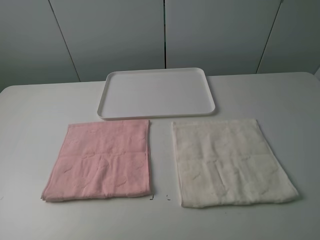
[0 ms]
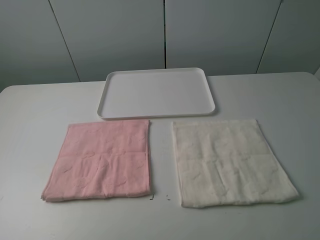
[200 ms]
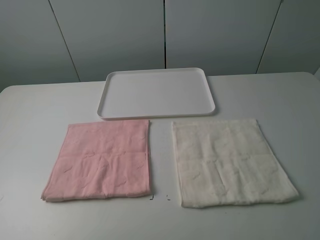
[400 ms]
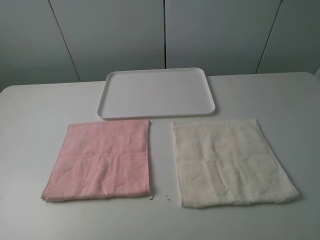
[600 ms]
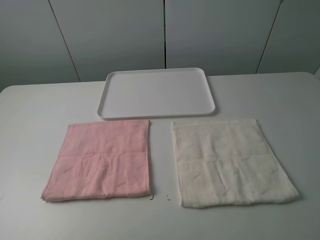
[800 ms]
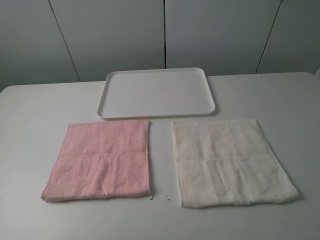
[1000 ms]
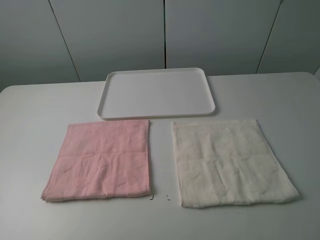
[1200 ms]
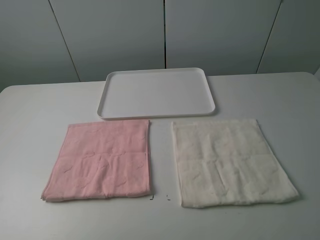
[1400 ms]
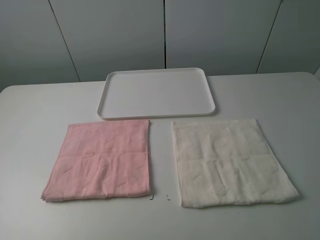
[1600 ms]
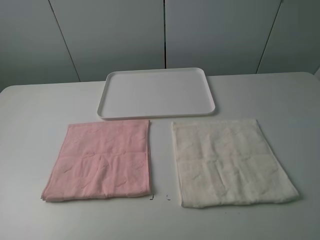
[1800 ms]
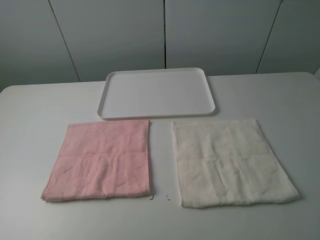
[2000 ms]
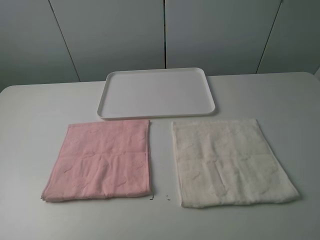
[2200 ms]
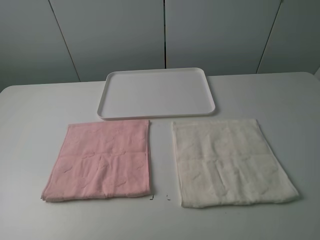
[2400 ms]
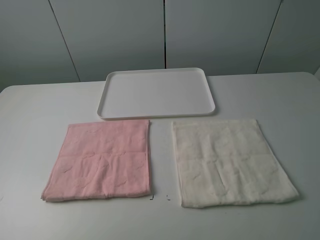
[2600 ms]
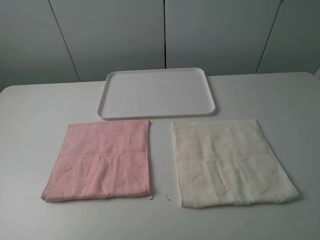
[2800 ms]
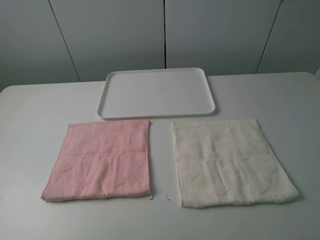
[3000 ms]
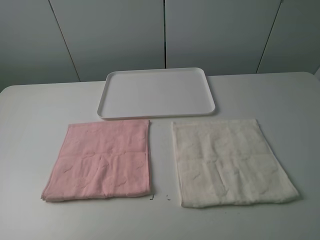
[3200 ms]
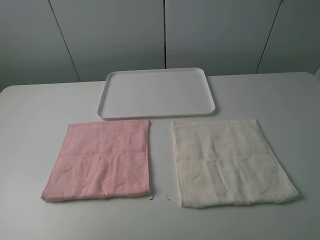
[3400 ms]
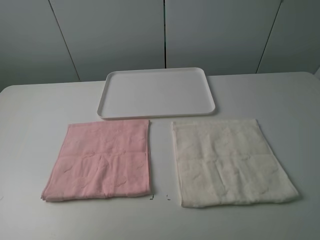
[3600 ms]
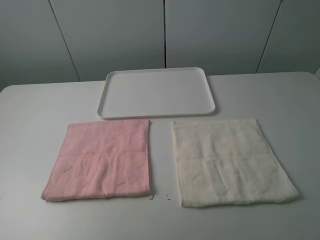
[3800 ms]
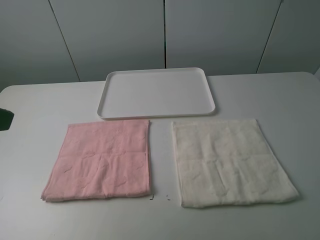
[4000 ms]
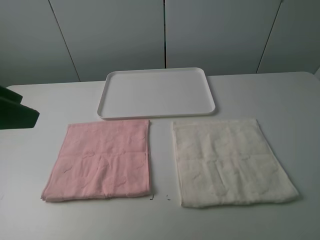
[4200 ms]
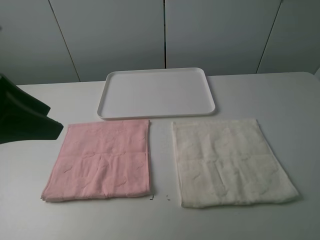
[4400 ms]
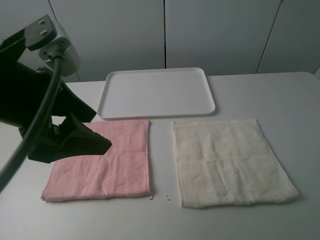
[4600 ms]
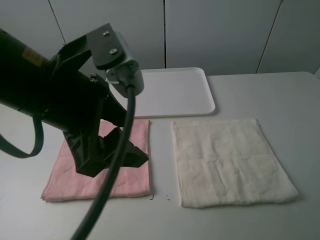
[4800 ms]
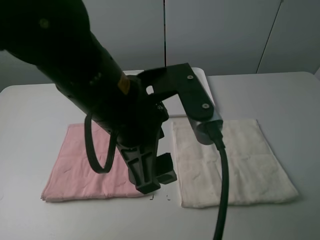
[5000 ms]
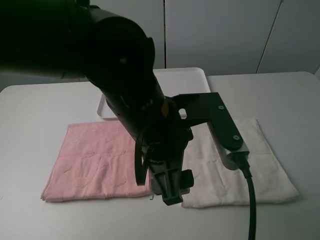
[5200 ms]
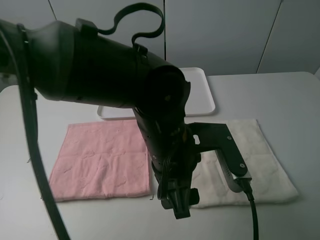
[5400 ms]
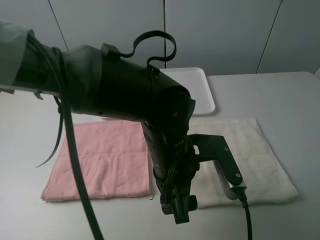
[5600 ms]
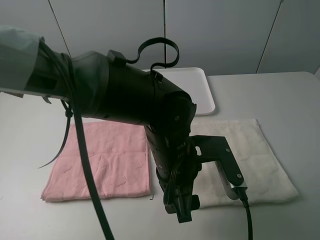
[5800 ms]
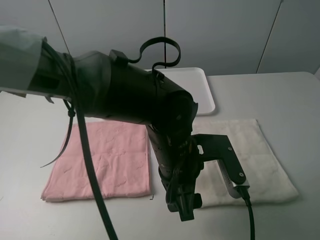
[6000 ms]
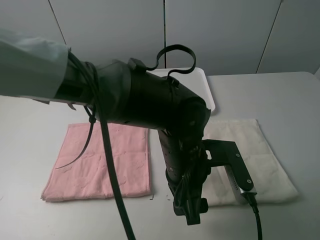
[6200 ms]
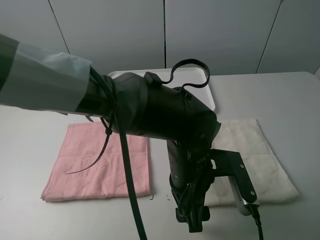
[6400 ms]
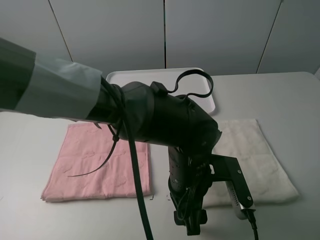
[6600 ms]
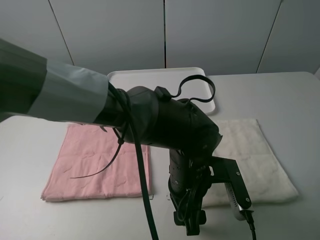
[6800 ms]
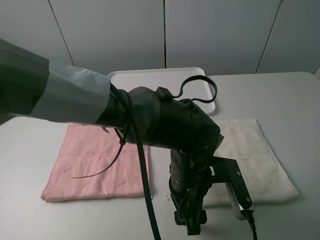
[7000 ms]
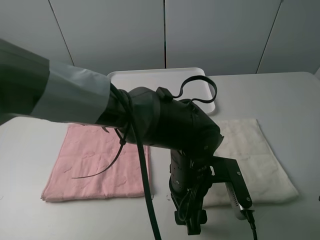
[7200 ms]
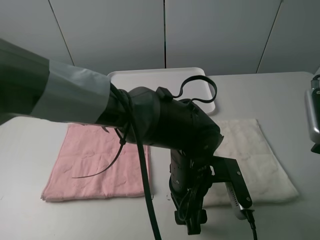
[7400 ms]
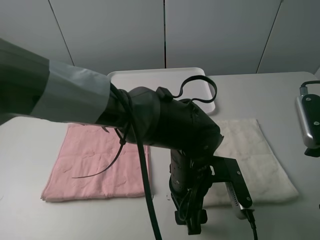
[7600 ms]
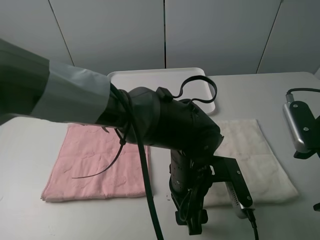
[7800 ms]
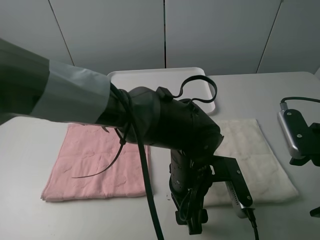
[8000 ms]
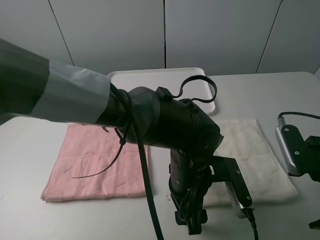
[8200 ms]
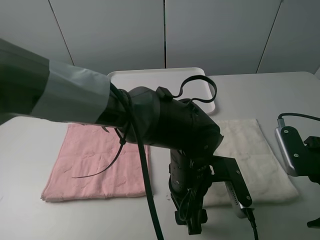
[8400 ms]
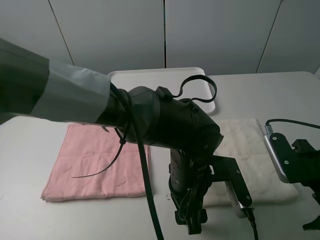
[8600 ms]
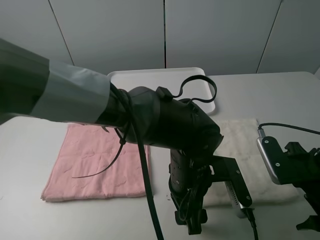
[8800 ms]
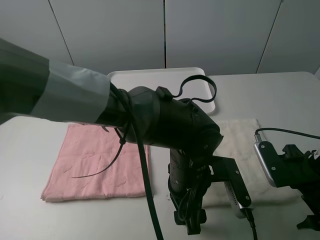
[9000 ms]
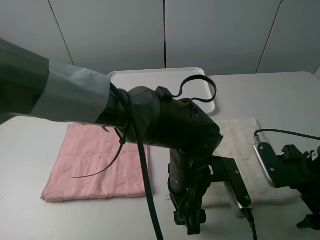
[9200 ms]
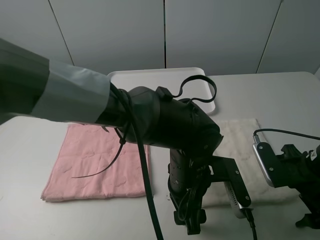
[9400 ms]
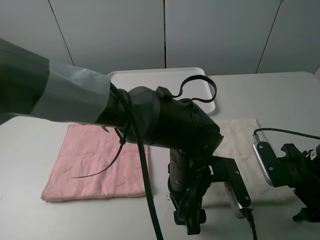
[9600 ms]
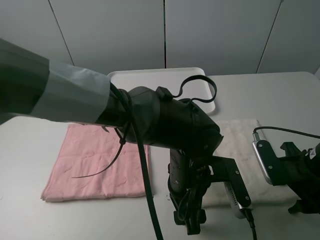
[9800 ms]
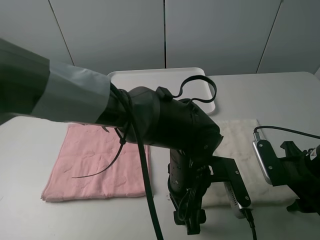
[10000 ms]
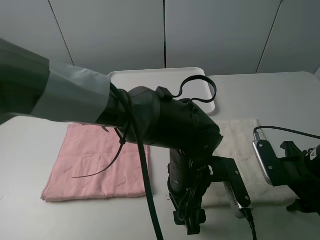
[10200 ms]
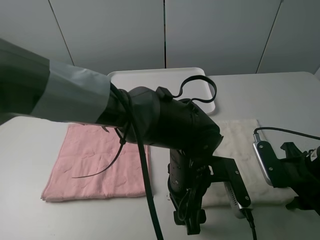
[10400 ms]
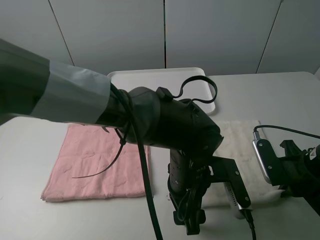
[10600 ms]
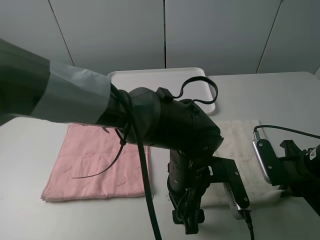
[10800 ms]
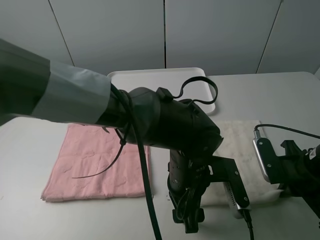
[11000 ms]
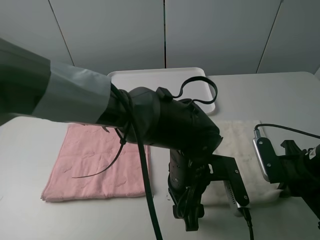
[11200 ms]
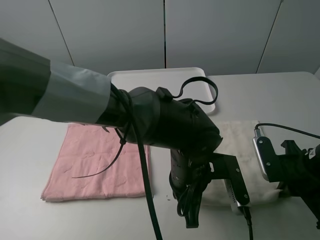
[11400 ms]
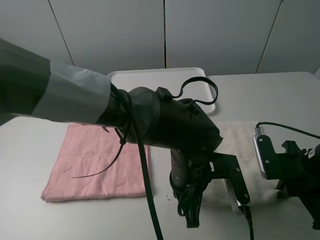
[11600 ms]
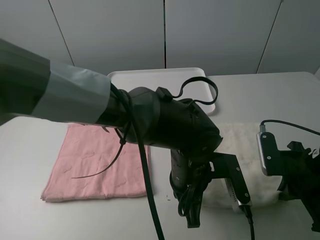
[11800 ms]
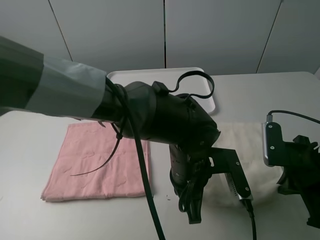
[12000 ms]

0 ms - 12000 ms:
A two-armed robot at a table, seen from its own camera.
Task of the whole recording: fold one of the towels by two grippers and place it on the tray,then fold another towel by two grippers and place it on the folded towel.
Step, 0 ms - 11800 ms: Grasp the white towel with the left gripper.
0 ms - 1600 ms: Both grippers stay put.
3000 ms - 4400 ms: The left gripper heads forward and to the right, covering approximately 15 cm.
4400 ms - 6000 ms: The left gripper shifts some 30 cm to the right and downward.
6000 ms - 7600 ms: The right gripper moves forward and downward, some 10 cm.
7600 ms - 9000 ms: The right gripper is displaced downward by some 10 cm.
9000 ms - 10400 ms: The right gripper closes up.
10400 ms - 12000 ms: The right gripper closes its fingers, while the left gripper closes.

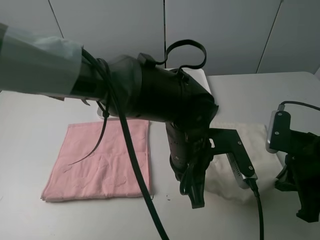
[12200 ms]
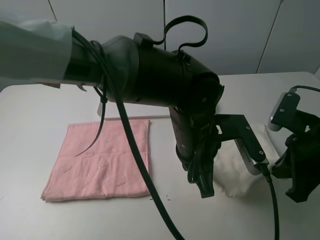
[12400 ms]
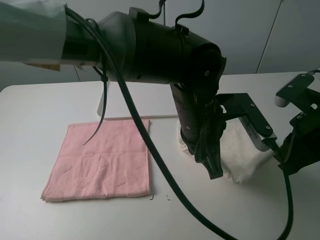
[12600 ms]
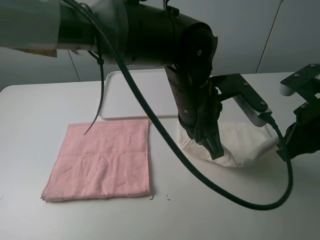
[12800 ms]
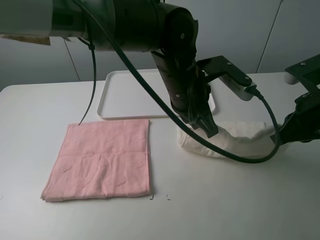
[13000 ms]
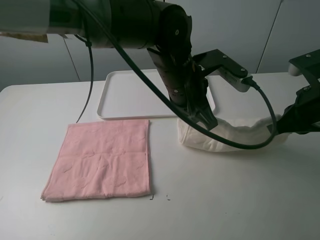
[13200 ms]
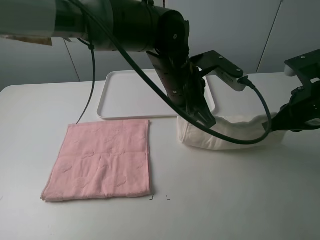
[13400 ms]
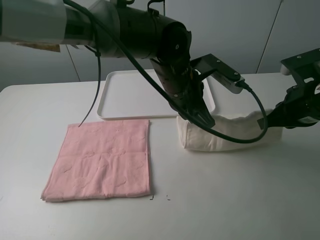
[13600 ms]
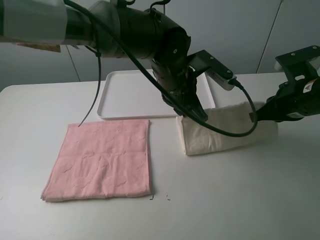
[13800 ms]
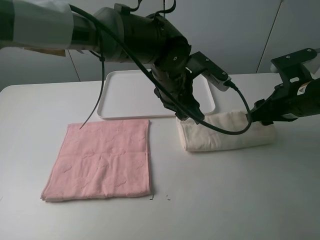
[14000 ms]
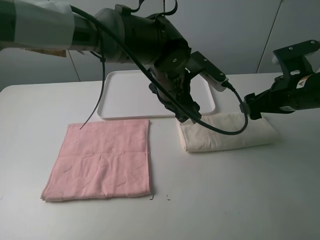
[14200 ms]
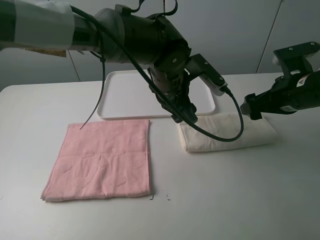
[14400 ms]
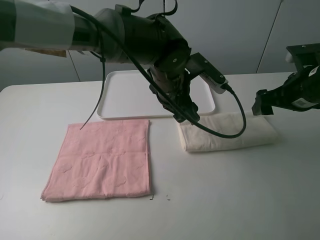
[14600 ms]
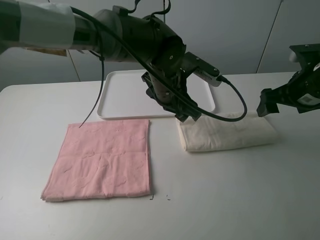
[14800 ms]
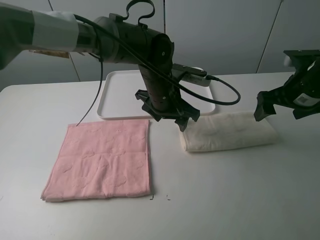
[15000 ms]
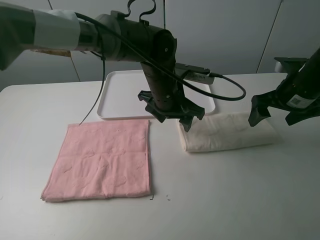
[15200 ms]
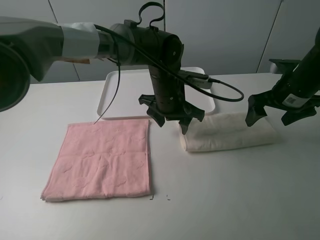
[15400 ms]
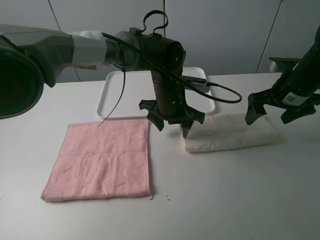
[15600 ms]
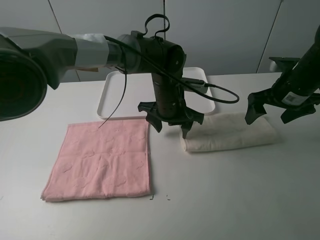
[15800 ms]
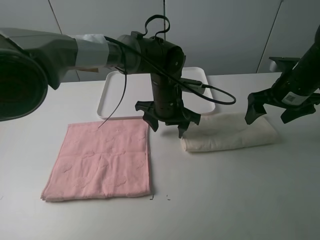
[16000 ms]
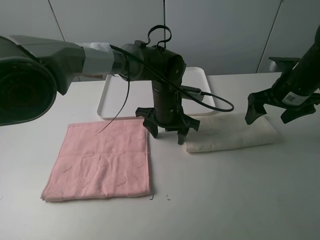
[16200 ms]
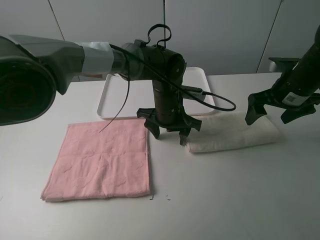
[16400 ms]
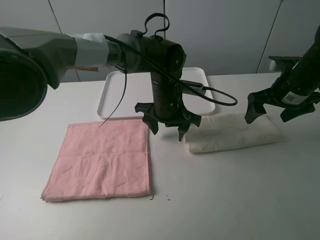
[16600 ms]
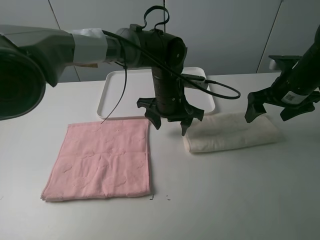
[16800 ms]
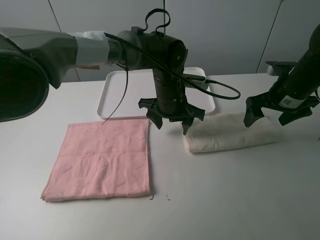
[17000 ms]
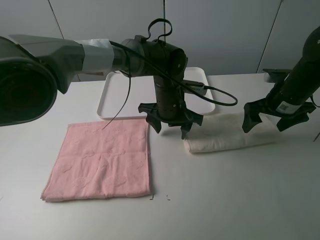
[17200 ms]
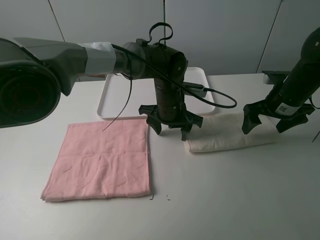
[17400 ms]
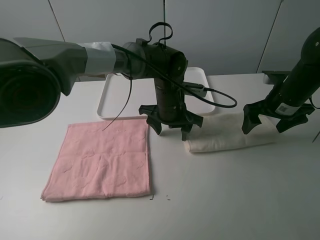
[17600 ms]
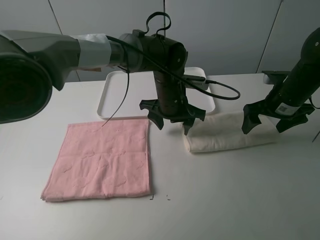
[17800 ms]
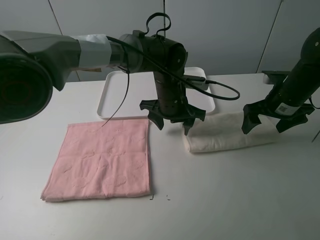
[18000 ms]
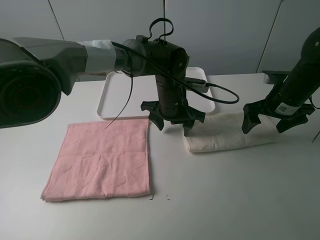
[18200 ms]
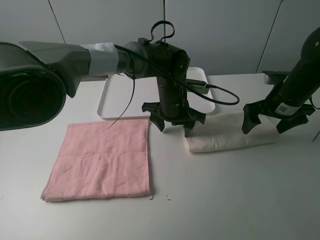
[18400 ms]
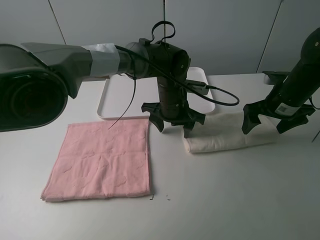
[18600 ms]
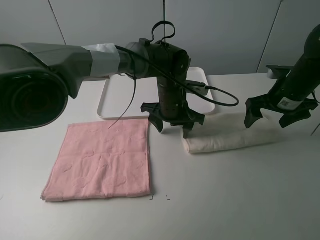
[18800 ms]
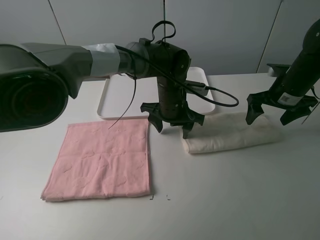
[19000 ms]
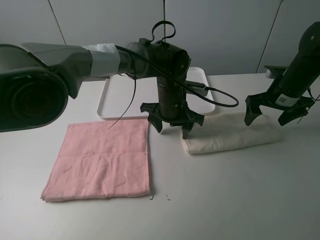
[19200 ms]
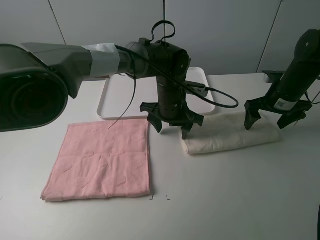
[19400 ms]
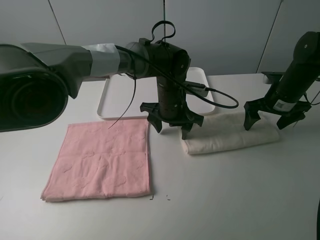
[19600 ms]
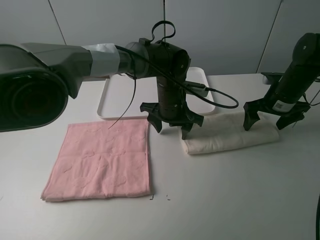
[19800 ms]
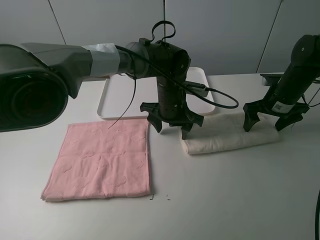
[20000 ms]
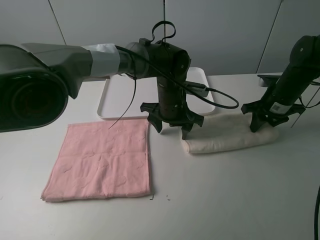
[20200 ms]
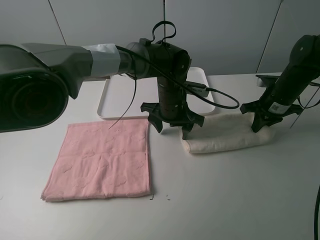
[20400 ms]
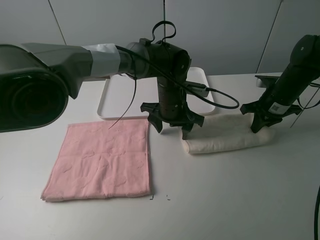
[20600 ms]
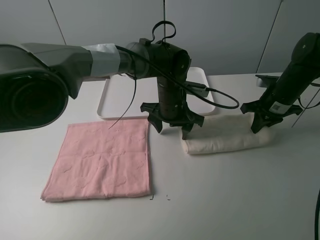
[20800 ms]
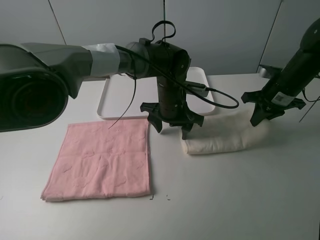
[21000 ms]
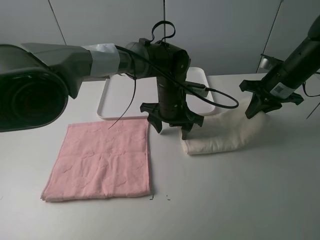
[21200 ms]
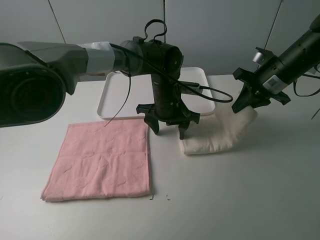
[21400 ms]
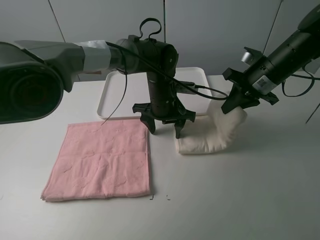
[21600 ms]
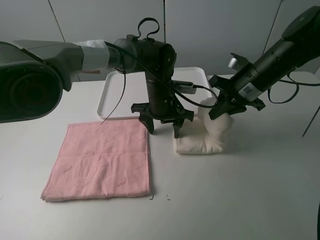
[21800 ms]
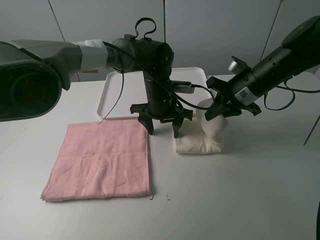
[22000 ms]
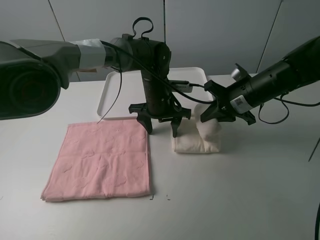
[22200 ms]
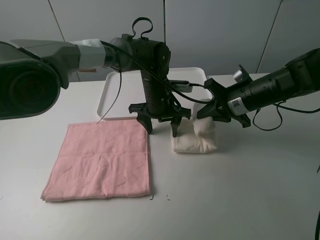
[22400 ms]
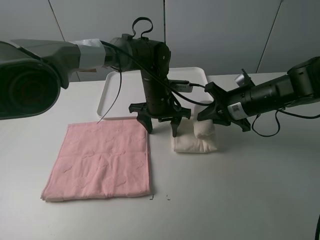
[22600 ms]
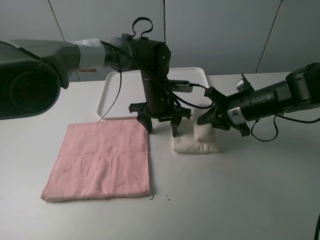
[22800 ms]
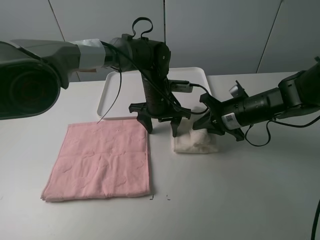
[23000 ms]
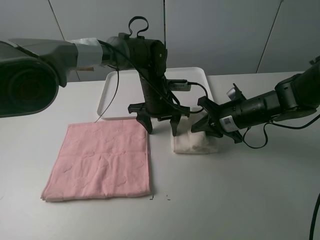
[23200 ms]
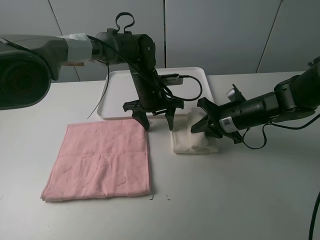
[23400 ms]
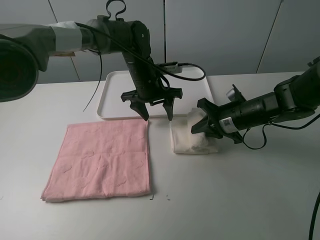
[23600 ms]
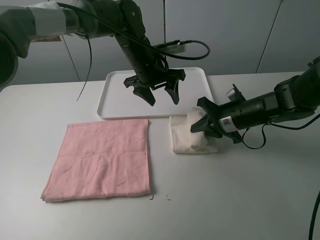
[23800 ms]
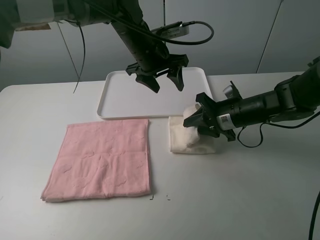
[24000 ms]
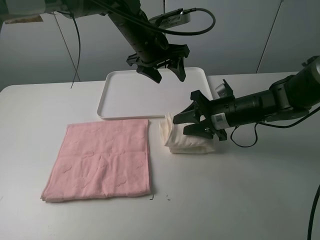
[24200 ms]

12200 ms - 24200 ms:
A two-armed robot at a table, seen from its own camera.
Task of the whole recording: fold one of the towels by two grippers and place it on the tray,then fold another towel by two grippers and place it on the folded towel.
Step, 12200 ms - 14200 ms: Fold the white towel upwards with the left gripper.
Step, 14400 ms - 19000 ms: Press the white towel with the left gripper.
Step, 19200 ms - 20400 ms: Grasp the white towel with the right gripper.
12200 ms - 13800 ms: Both grippers travel together forward, about 10 cm. The left gripper opens its fingers.
13800 ms - 15200 ms: The left gripper opens its fingers; the right gripper is displaced forward by some 5 cm, and opens its fingers.
15200 ms - 18200 ms: The grippers make only small movements.
18200 ms - 19800 ms: The right gripper ends up roughly 5 cm from where it was.
19800 ms - 21200 ms: The right gripper travels upward by some 5 cm, and closes.
21200 ms - 22600 ms: The right gripper moves to the left, about 5 cm.
22600 ms - 24200 ms: The left gripper moves upward, some 10 cm. The right gripper opens its fingers.
